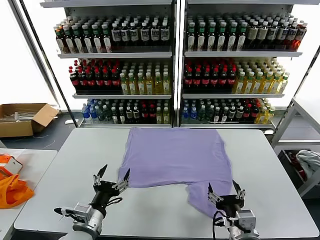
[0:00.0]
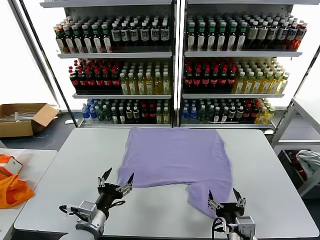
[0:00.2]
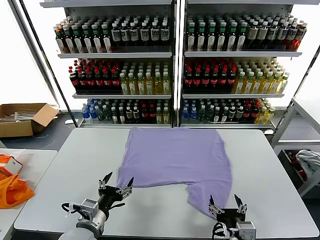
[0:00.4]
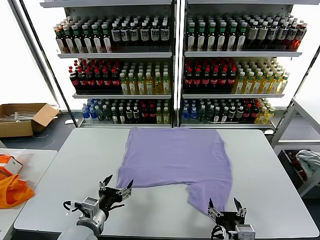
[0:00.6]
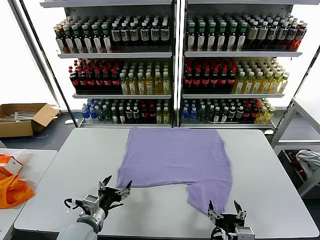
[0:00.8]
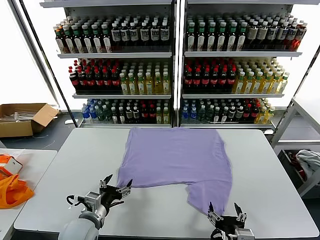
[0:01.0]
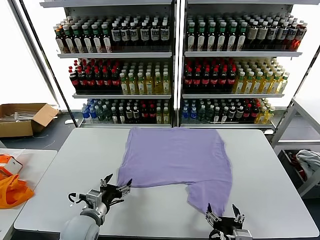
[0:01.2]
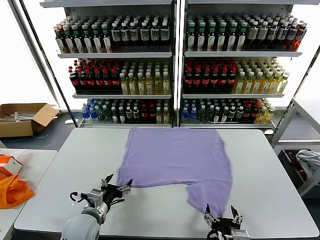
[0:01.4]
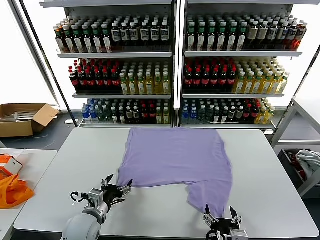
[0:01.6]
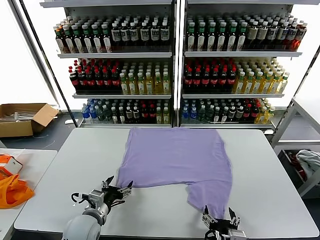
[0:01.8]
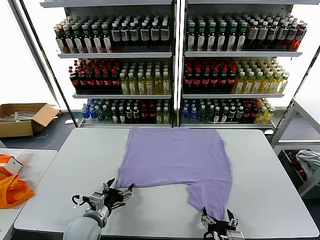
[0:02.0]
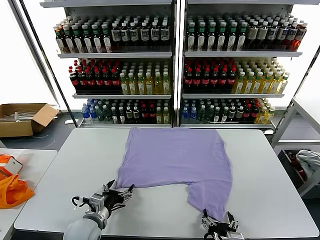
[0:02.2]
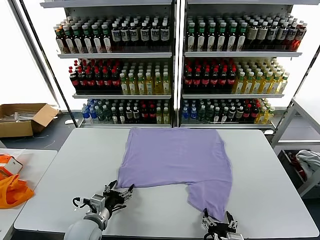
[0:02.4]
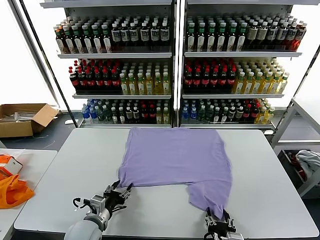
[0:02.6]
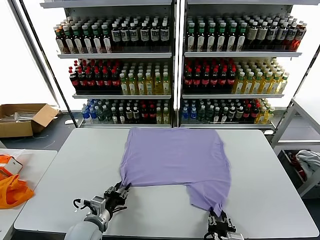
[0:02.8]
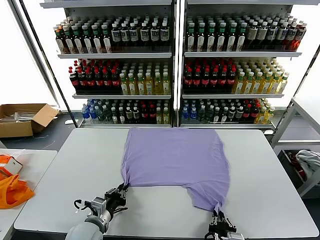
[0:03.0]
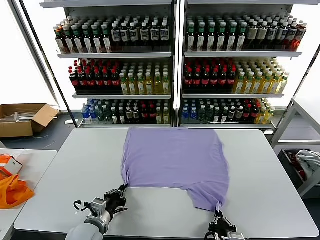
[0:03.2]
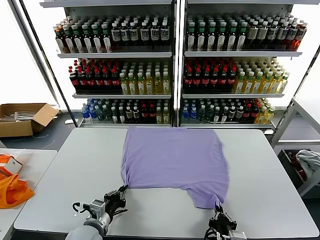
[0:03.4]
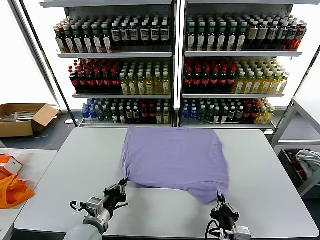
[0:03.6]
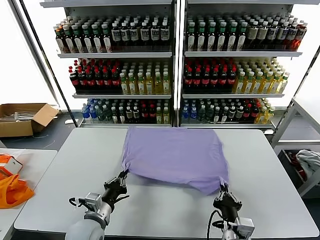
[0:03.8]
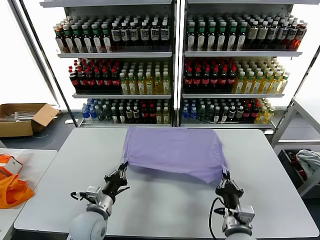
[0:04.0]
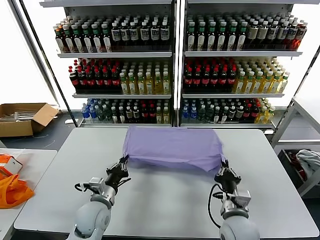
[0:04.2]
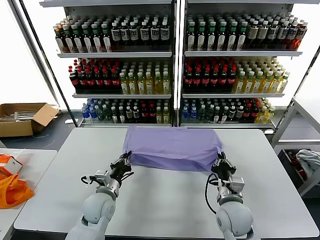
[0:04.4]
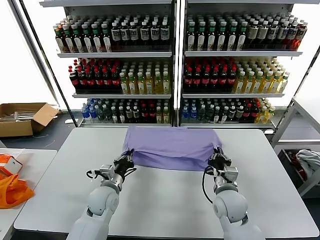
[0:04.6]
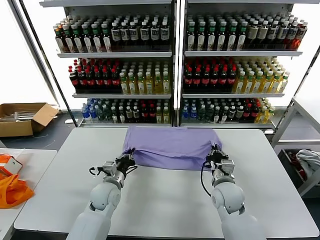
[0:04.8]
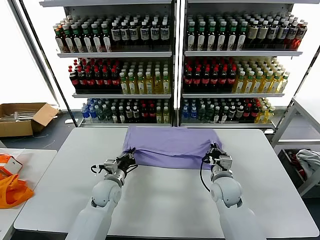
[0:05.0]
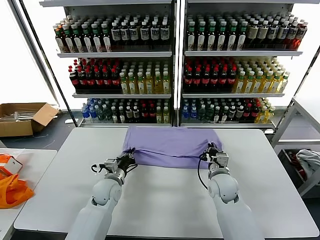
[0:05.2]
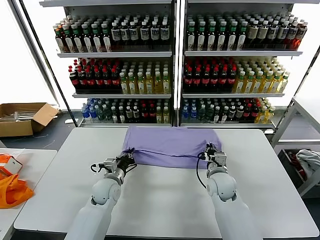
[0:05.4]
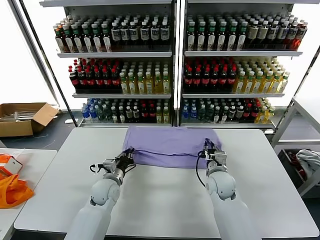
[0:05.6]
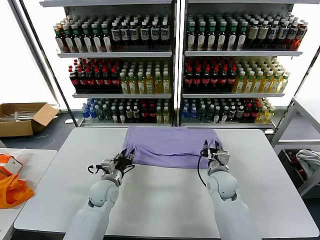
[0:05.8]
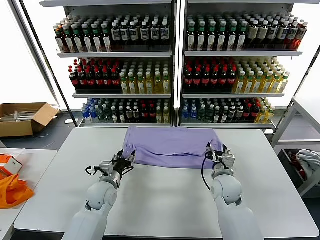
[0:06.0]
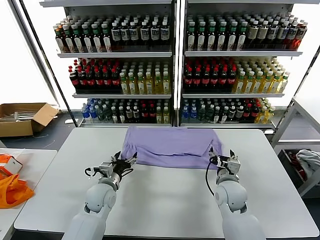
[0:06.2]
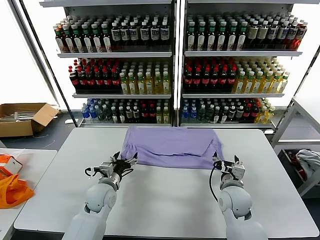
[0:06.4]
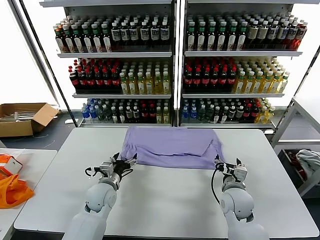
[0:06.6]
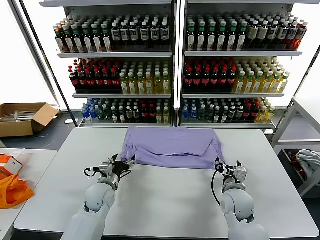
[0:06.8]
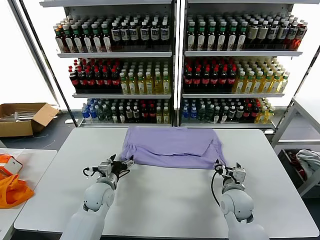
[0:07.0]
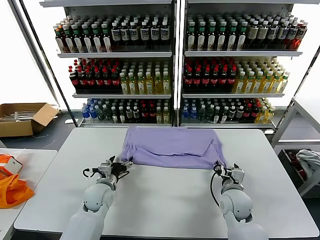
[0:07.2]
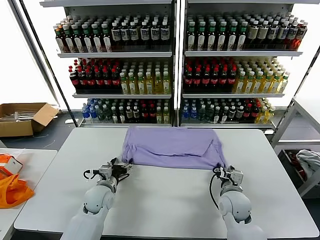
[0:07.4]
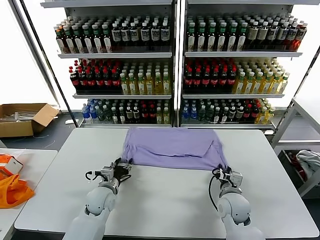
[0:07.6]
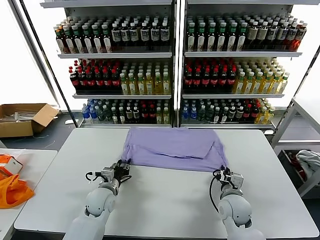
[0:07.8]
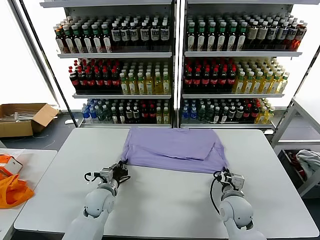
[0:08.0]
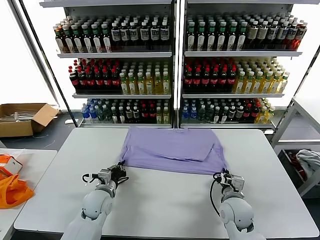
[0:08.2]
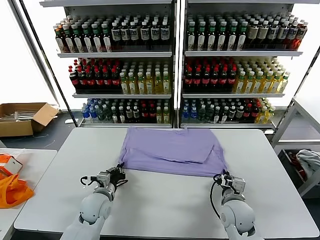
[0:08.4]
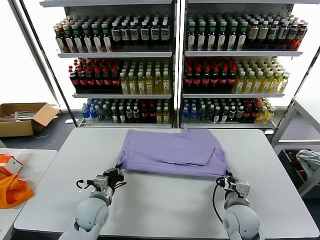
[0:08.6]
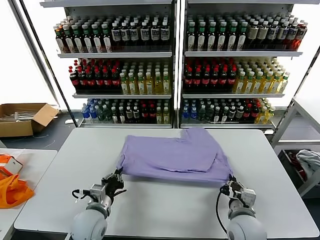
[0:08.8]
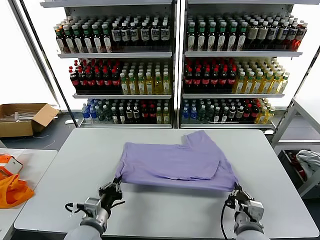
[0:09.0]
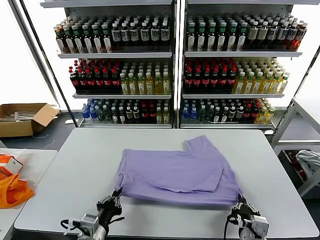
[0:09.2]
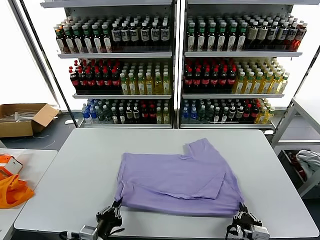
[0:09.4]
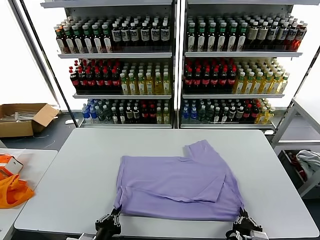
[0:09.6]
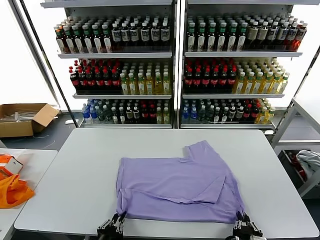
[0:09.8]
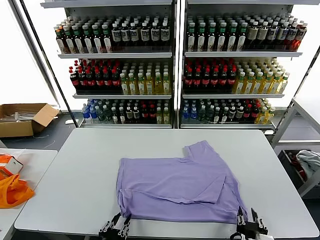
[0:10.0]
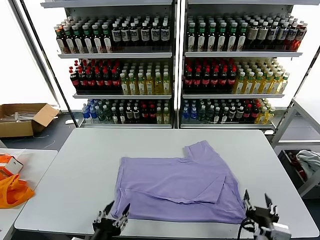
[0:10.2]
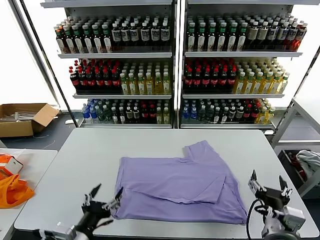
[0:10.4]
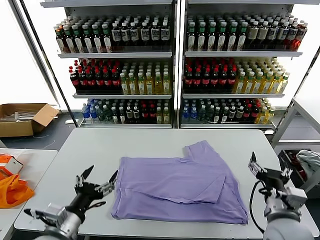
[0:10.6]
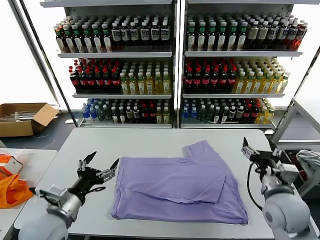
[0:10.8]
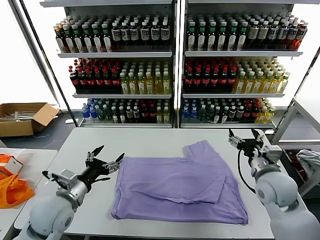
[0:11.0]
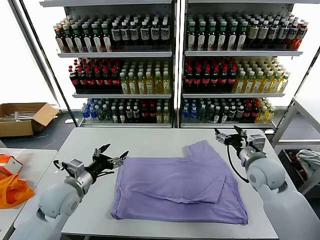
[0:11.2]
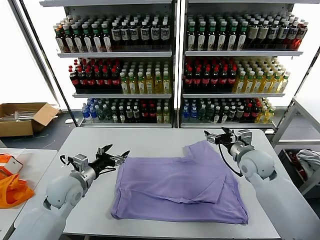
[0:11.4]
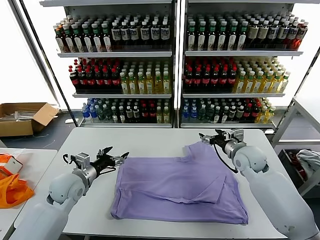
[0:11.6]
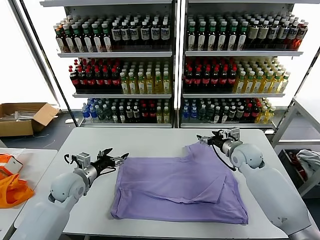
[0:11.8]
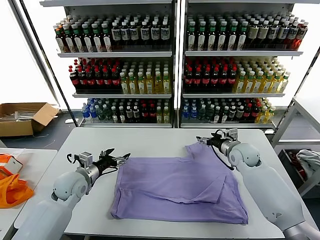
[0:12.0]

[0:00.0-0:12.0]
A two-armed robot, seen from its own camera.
Task of the whole recording: fold and organize the clothes.
Step, 0:00.0 to 0:03.0: use both grippers simultaneously to clamp the lower edge of the clothing fabric.
Step, 0:03.2 to 0:05.8: use both grippers to drag the lower edge of the fabric forward and fold it over the upper edge.
Step, 0:06.2 to 0:10.0: Drag the clothes downward with both gripper.
0:01.6 to 0:03.0: The right gripper closes up; the left gripper closes.
0:03.0 to 0:04.4: The left gripper goes about 10 cm forward; the right gripper is displaced forward by roughly 20 cm.
0:04.4 to 0:06.0: The right gripper is displaced forward by approximately 5 cm, and opens. Meanwhile the left gripper opens its fingers.
0:06.0 to 0:07.6: The right gripper changes place by approximately 5 cm, and closes.
0:07.6 to 0:09.0: Both grippers move backward, about 15 cm. The left gripper closes.
0:09.0 to 0:10.4: The left gripper is displaced backward and upward by some 10 cm, and opens its fingers. The right gripper shifts approximately 5 cm upward, and opens up.
0:10.4 to 0:12.0: Both grippers travel together forward, about 30 cm.

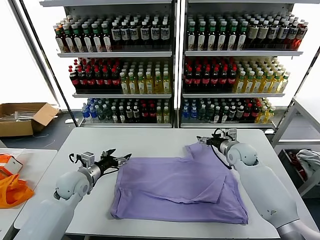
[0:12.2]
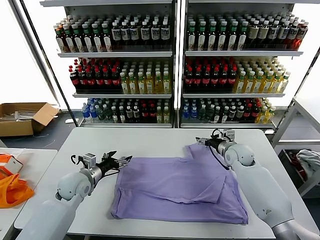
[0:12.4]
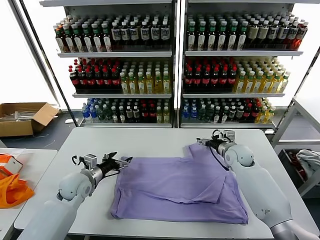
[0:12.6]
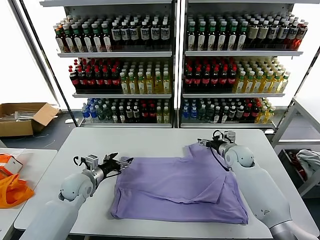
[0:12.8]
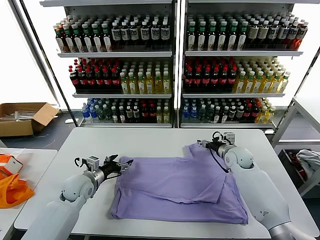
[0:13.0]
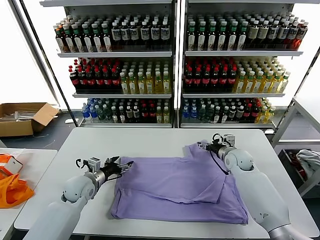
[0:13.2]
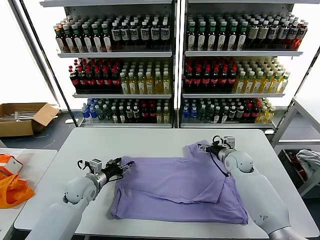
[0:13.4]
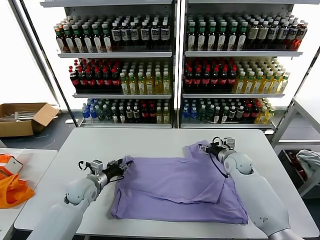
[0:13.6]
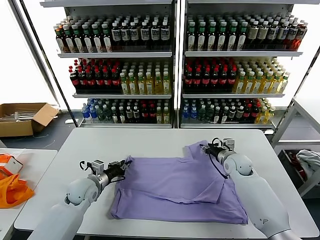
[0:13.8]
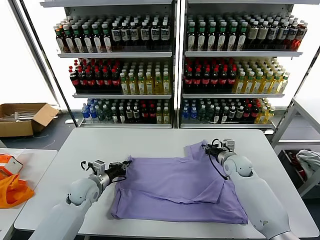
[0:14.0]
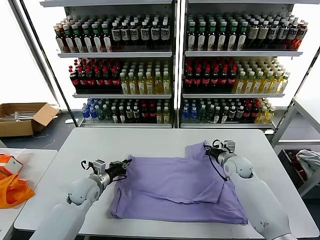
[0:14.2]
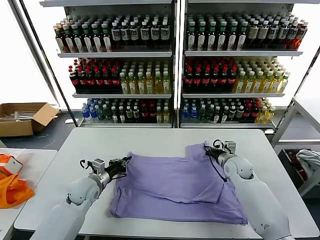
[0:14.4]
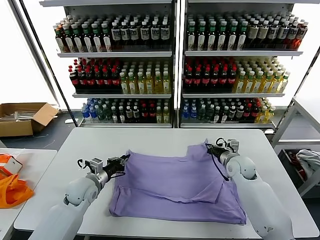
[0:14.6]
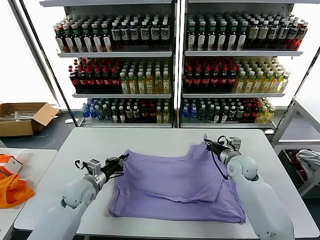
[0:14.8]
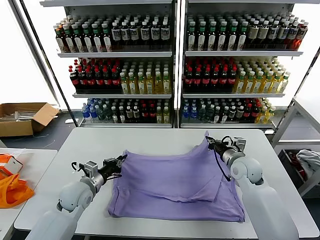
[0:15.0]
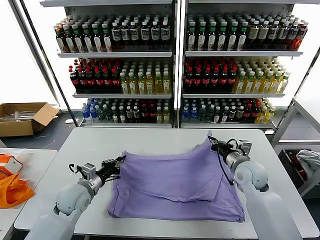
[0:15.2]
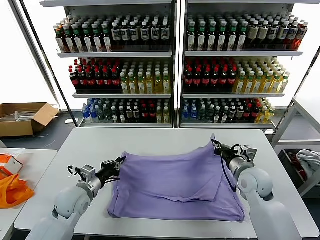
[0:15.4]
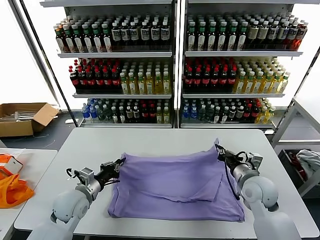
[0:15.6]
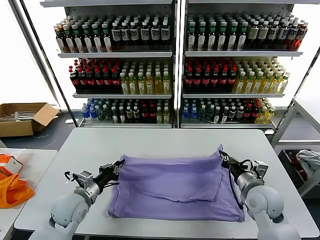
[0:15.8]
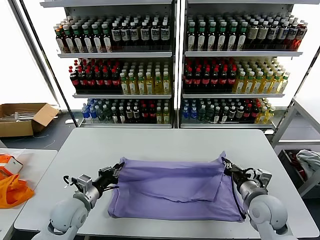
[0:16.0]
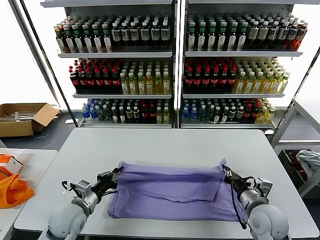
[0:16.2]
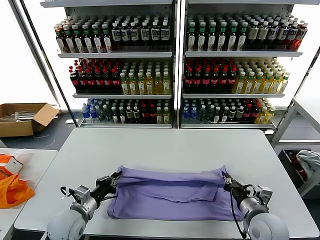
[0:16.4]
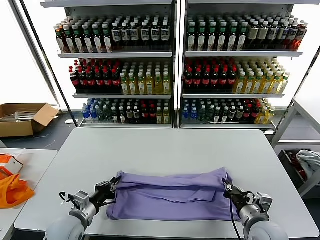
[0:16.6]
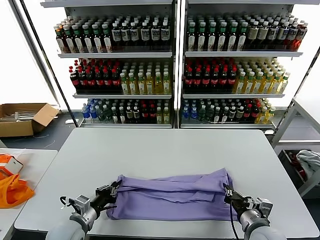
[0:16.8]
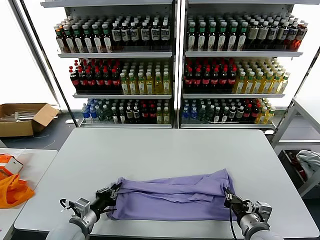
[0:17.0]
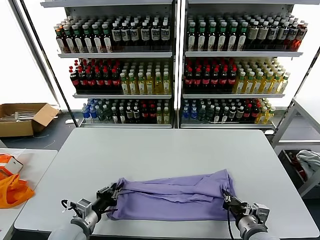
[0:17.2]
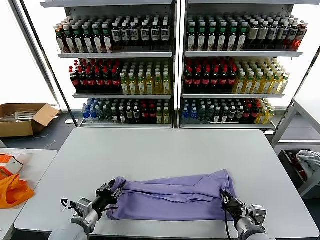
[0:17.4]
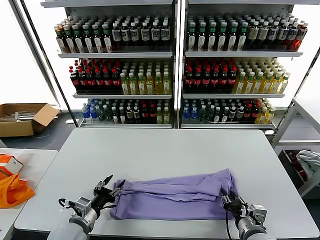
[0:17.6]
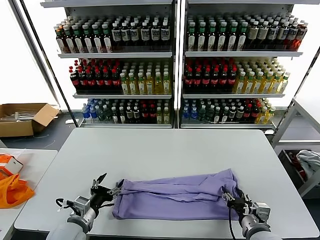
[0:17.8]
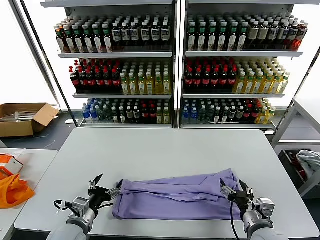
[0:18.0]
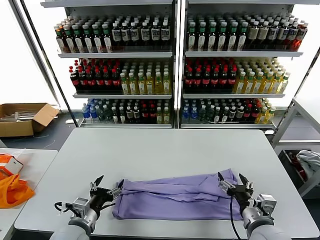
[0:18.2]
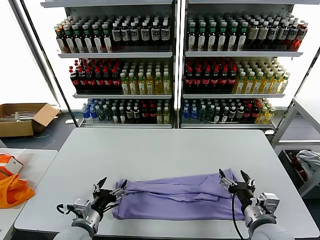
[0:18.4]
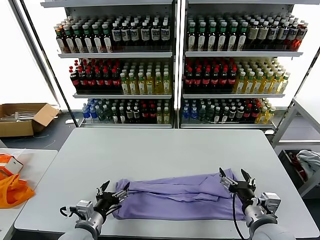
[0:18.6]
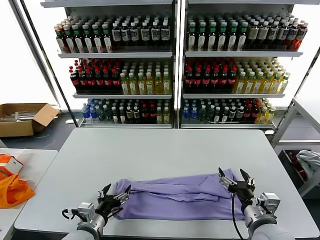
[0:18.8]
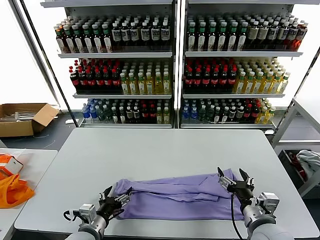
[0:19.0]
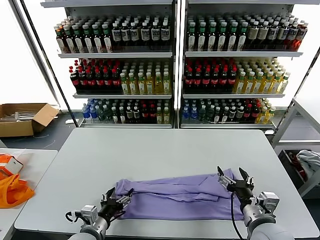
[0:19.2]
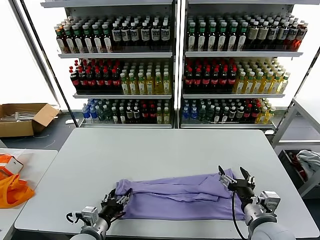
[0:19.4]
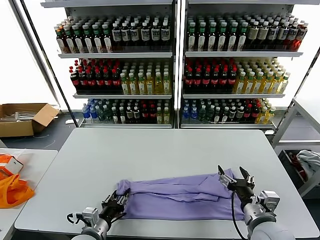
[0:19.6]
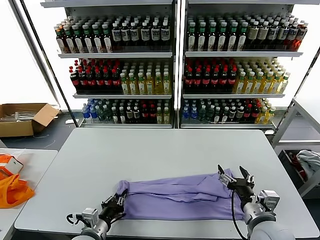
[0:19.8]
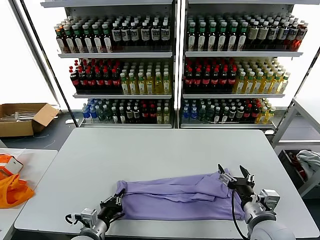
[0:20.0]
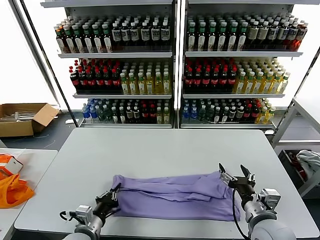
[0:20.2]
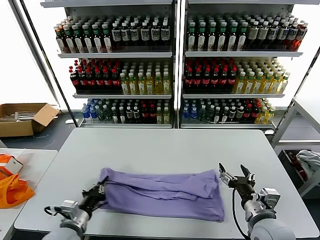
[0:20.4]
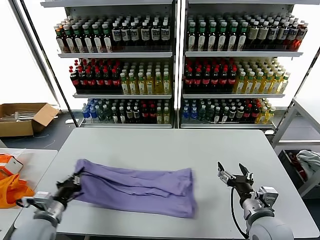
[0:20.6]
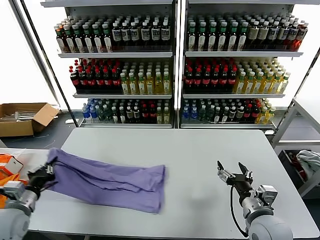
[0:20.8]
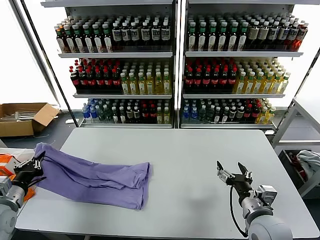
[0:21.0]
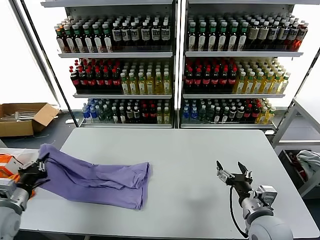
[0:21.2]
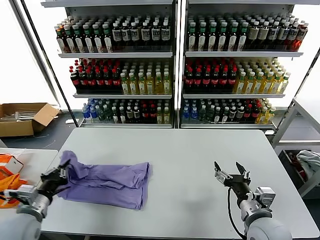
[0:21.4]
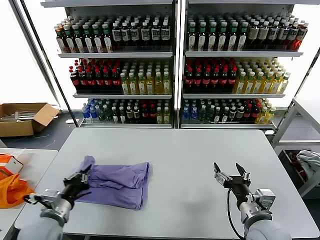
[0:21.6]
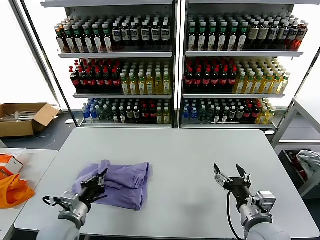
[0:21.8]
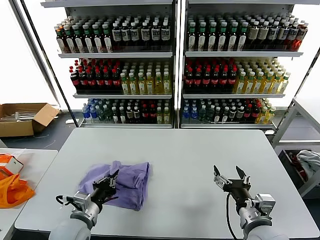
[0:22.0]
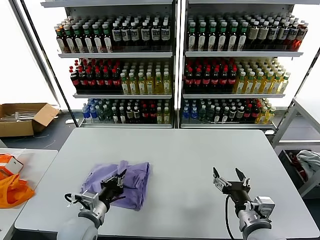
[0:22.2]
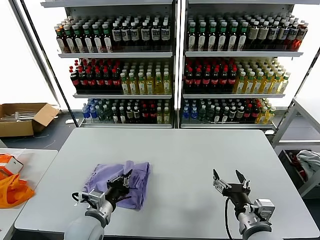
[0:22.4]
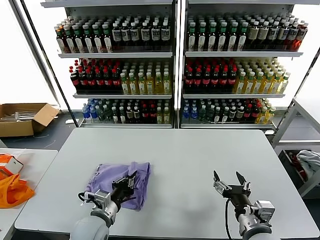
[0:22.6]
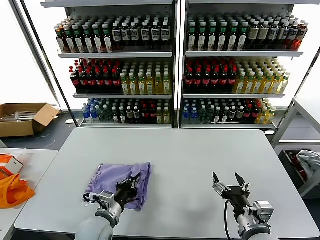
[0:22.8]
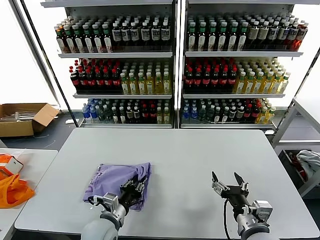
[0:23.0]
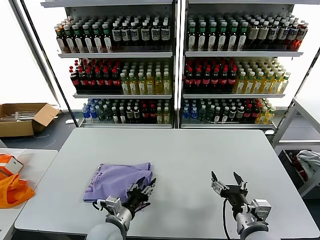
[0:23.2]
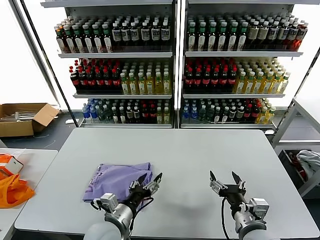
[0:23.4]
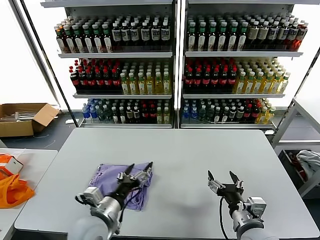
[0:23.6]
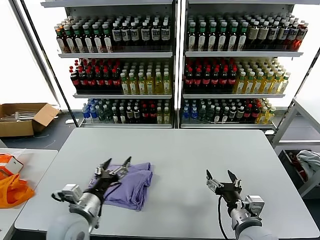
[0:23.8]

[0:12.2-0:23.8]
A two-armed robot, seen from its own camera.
Task of the whole recording: fold and organize the clothes.
Step, 0:12.2 to 0:14.2: use both grippers simultaneously to clamp the upper edge of the clothing fabric.
Step, 0:14.4 to 0:17.8: use both grippers to drag the upper edge of the fabric backward and fold it over the lower edge.
Step, 0:18.0 to 0:19.8: use the left gripper to clamp the left edge of the fabric.
Step, 0:20.0 to 0:23.2: use the left gripper to drag the left edge of the fabric to the left and folds it over the right edge.
0:12.2 to 0:13.6: The left gripper closes.
0:13.6 to 0:15.0: The left gripper closes its fingers; the right gripper shifts roughly 10 cm backward and upward, and closes.
0:15.0 to 0:16.6: The right gripper is displaced backward by about 20 cm. The left gripper heads backward, covering about 10 cm.
0:16.6 to 0:18.0: The left gripper opens its fingers; the right gripper opens its fingers.
0:18.0 to 0:19.4: The left gripper moves roughly 5 cm.
0:19.4 to 0:21.0: The left gripper goes approximately 25 cm to the left and upward, and closes its fingers.
0:21.0 to 0:22.4: The left gripper moves to the right, approximately 25 cm.
0:22.4 to 0:23.8: The left gripper opens up.
